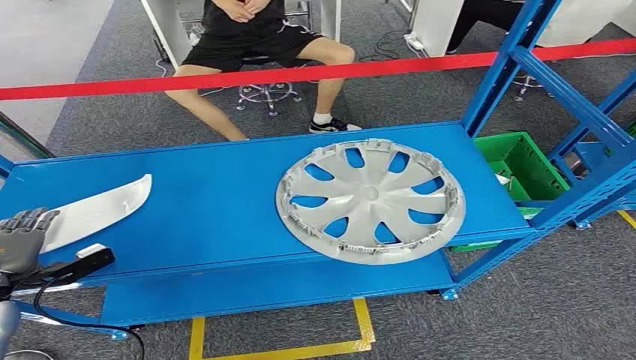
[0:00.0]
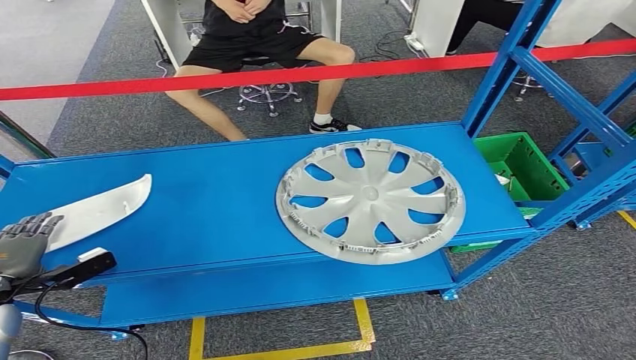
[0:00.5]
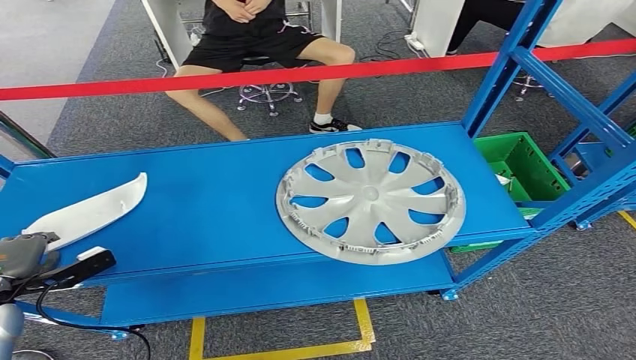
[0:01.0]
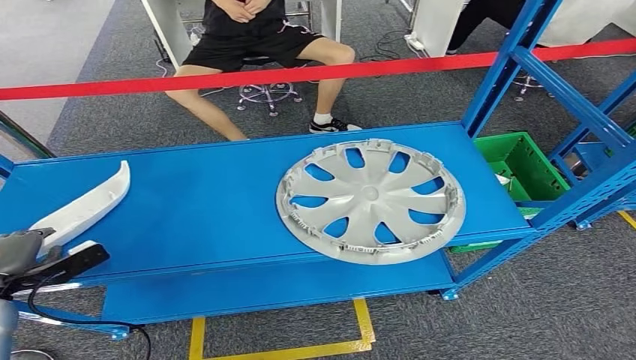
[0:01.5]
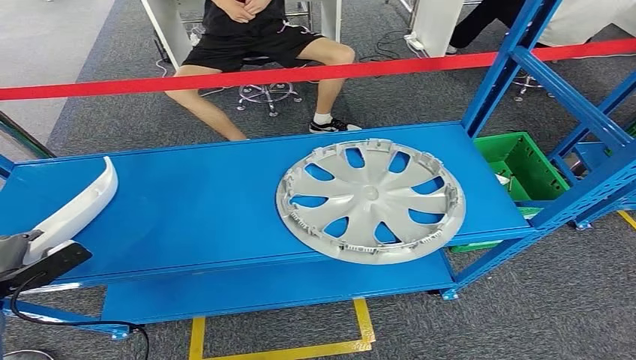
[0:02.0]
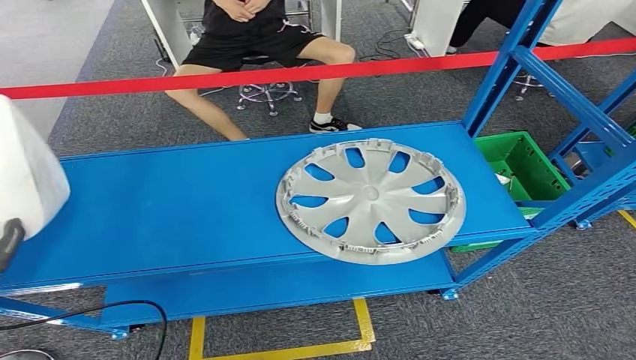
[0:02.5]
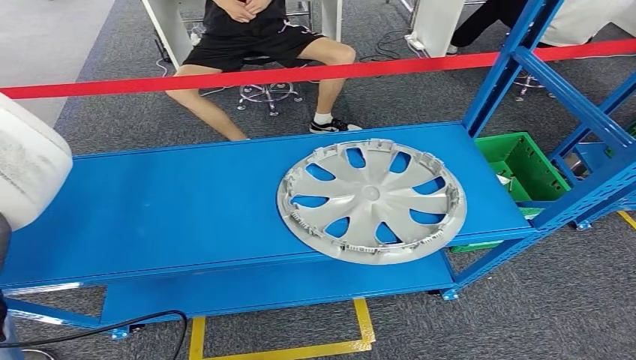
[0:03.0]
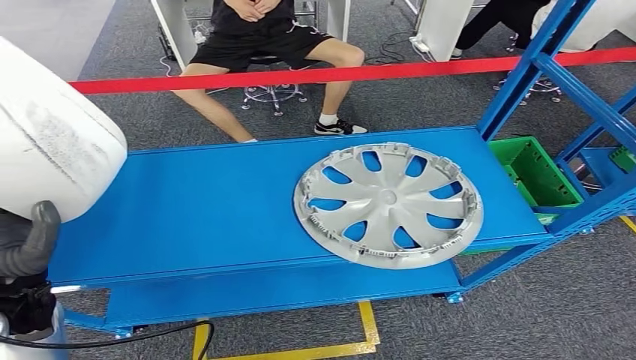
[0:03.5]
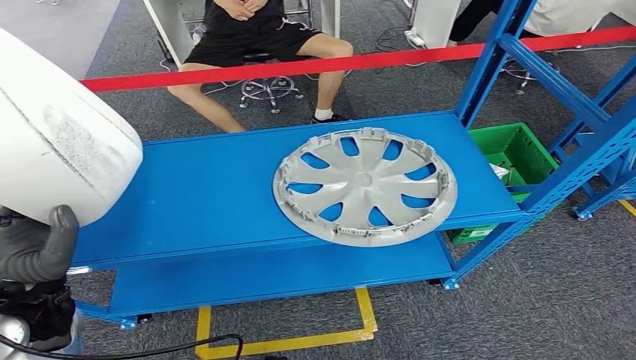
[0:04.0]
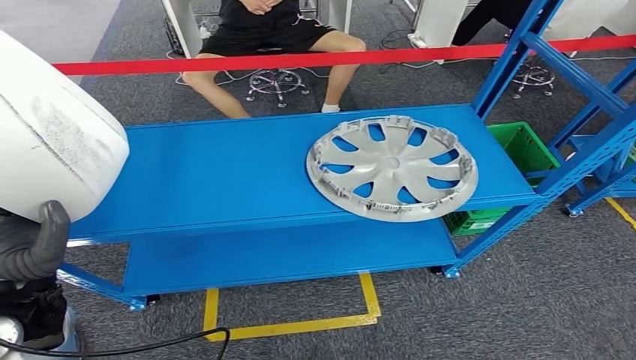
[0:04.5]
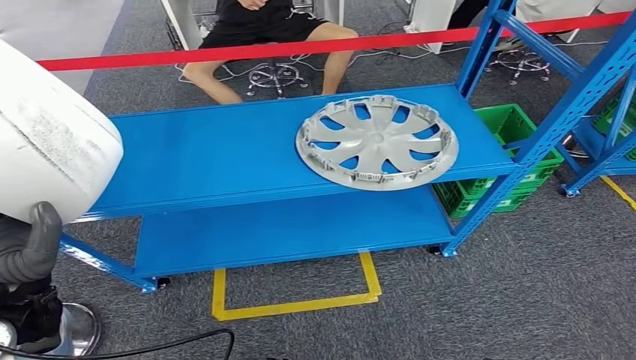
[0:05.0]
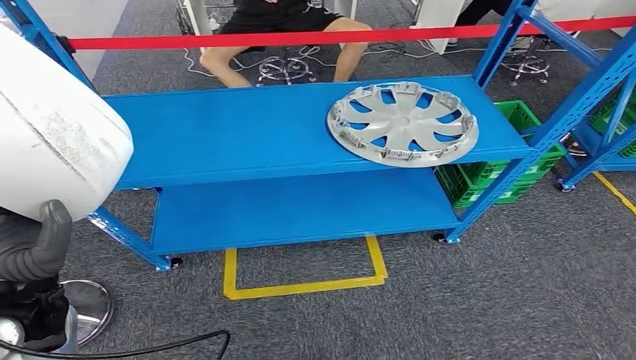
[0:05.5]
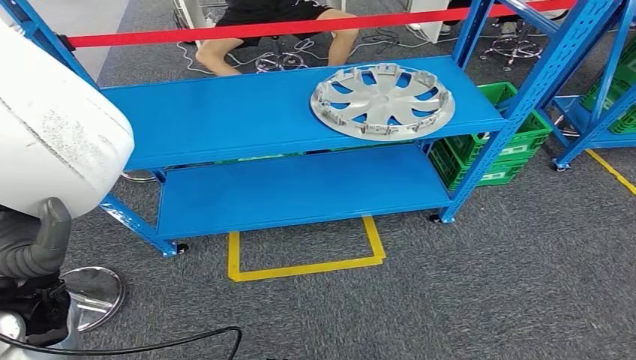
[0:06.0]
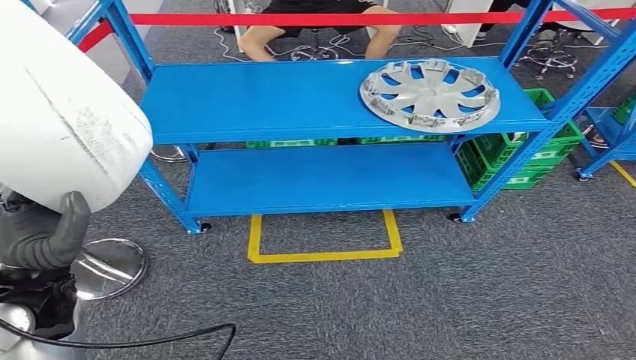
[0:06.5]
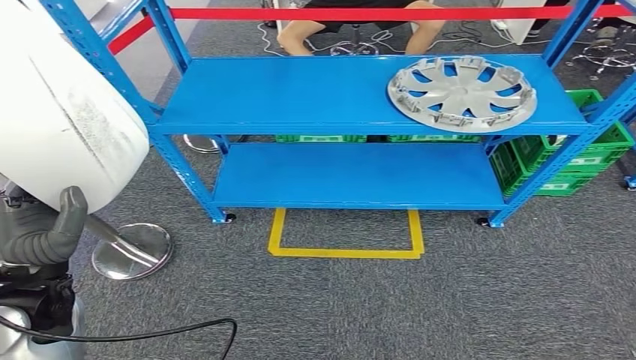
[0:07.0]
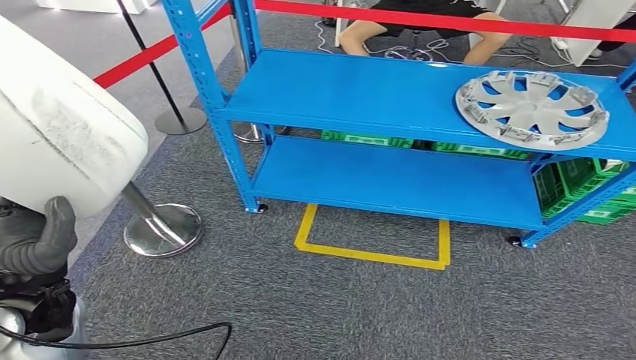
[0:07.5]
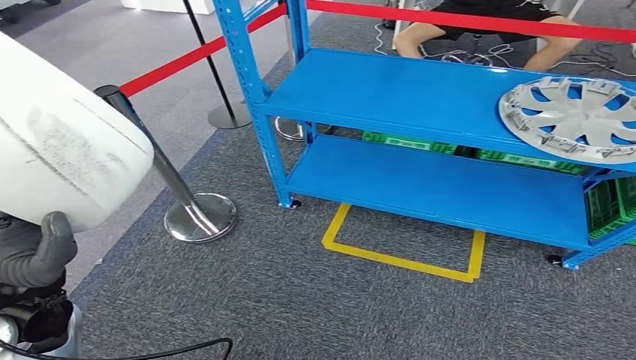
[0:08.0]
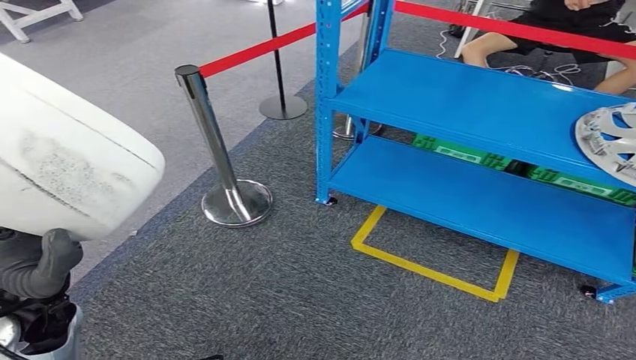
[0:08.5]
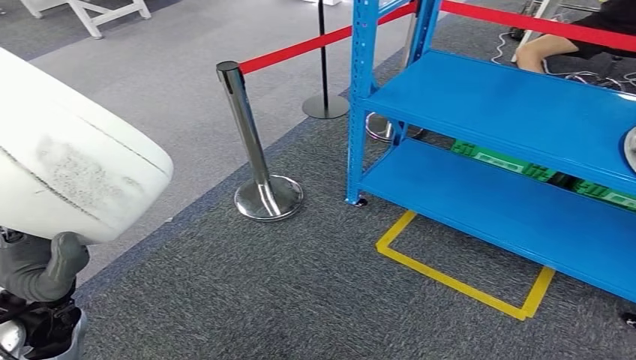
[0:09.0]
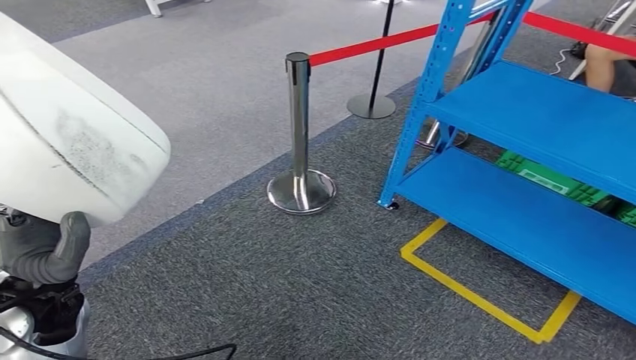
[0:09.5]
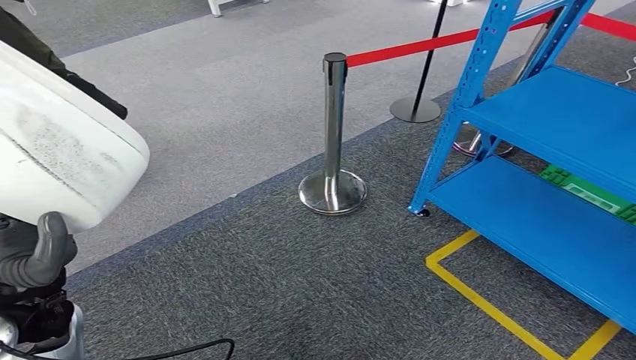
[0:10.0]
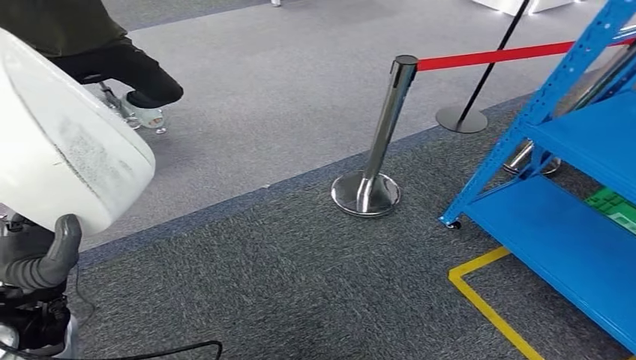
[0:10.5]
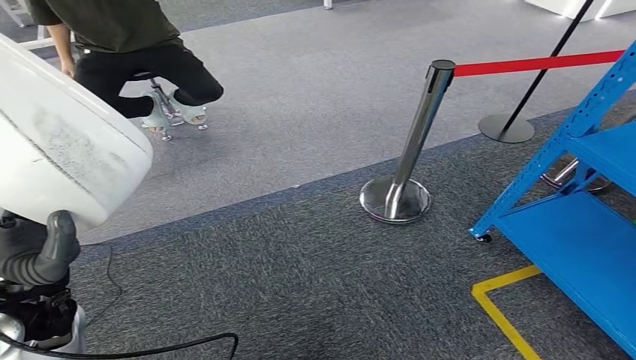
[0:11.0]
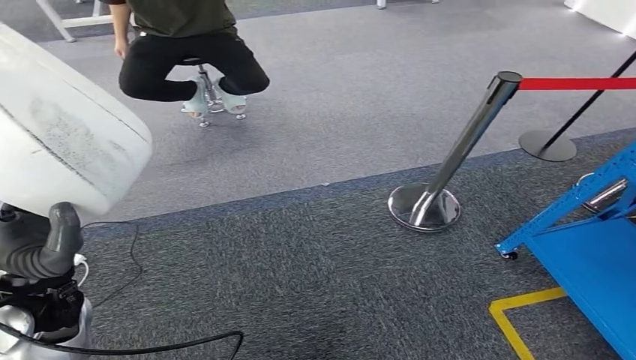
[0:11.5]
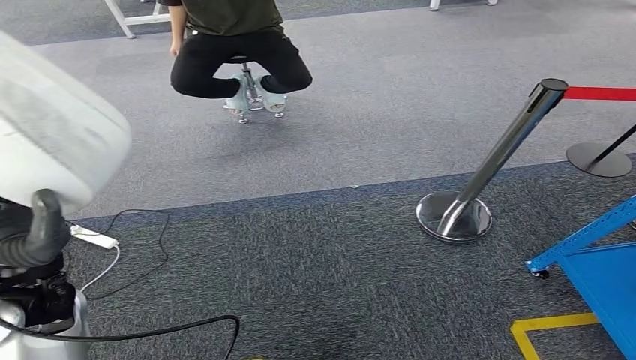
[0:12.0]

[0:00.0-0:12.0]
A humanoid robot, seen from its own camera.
Step, 0:00.0 to 0:04.5: Pick up the small component from the shelf.

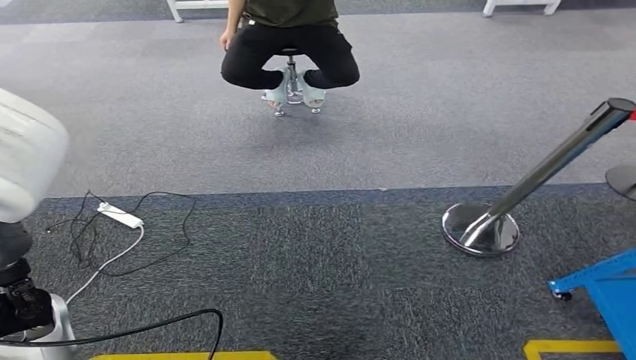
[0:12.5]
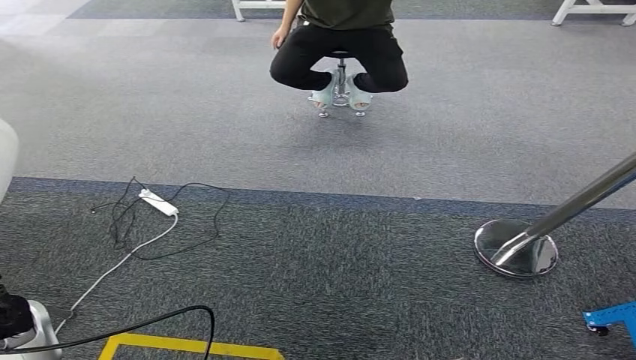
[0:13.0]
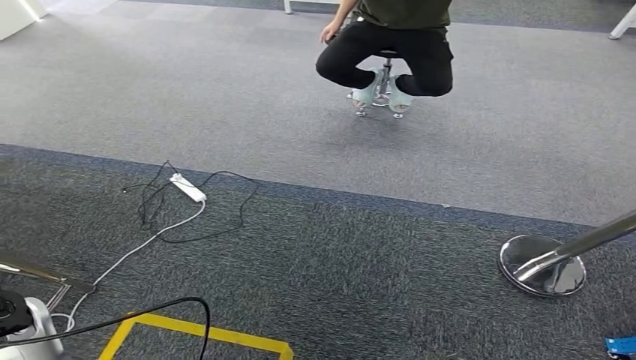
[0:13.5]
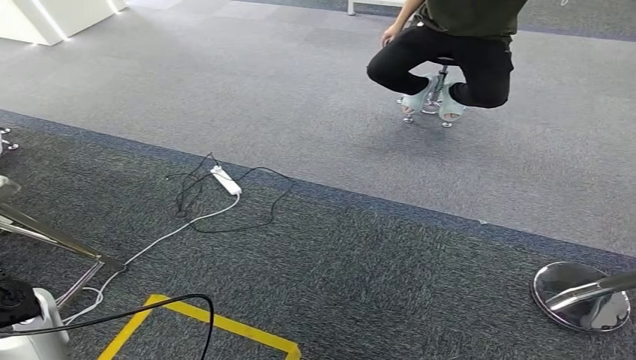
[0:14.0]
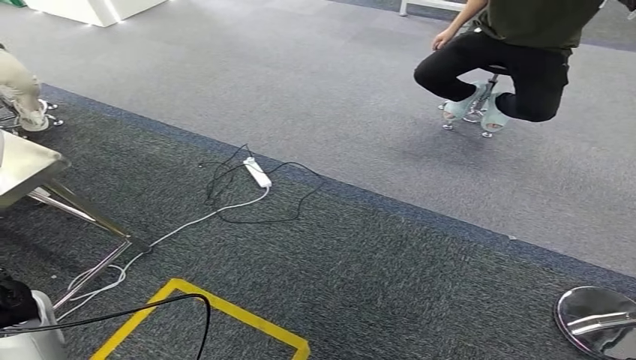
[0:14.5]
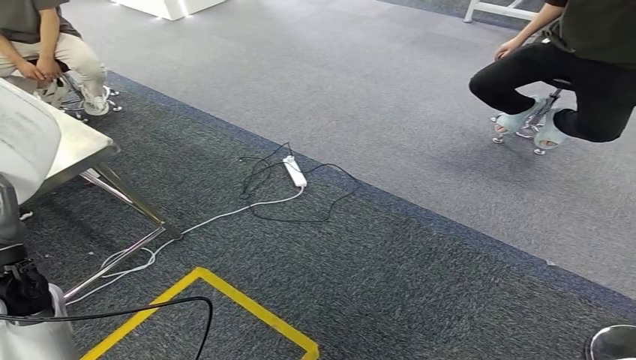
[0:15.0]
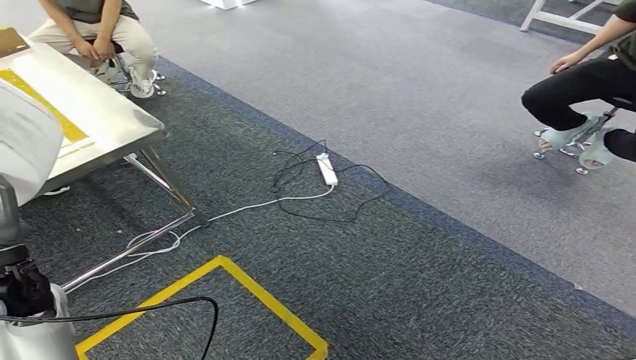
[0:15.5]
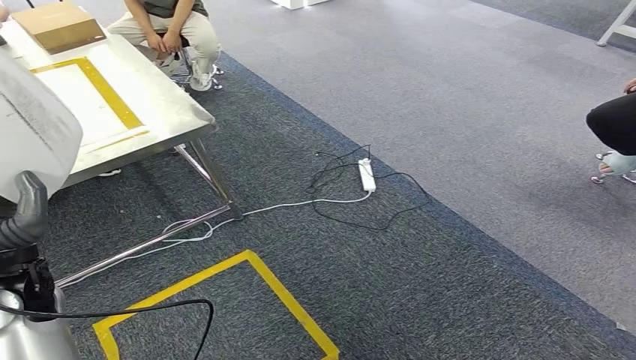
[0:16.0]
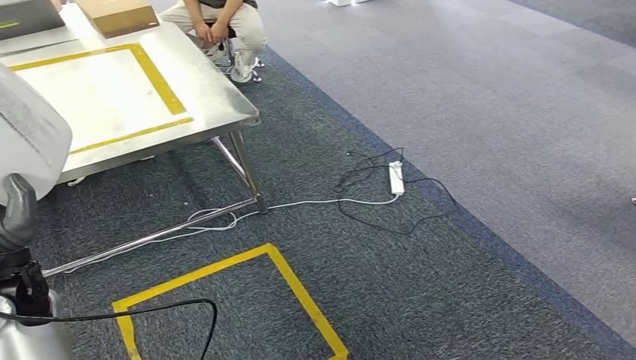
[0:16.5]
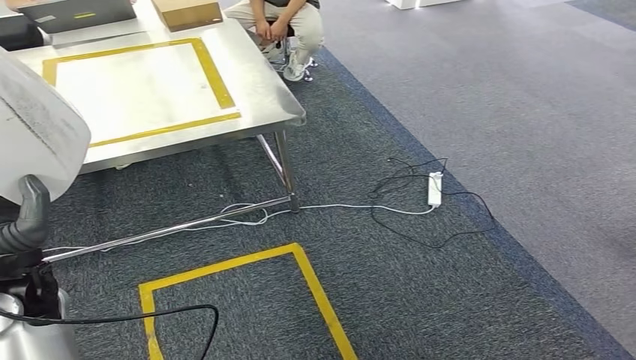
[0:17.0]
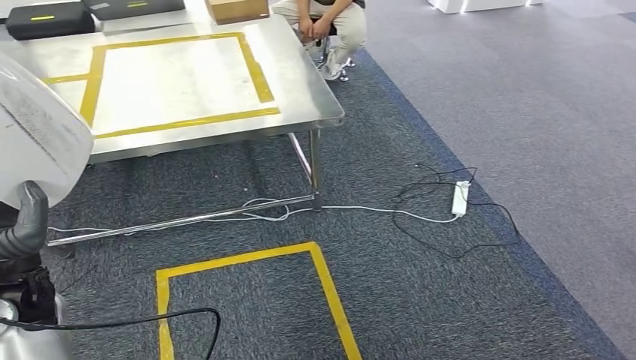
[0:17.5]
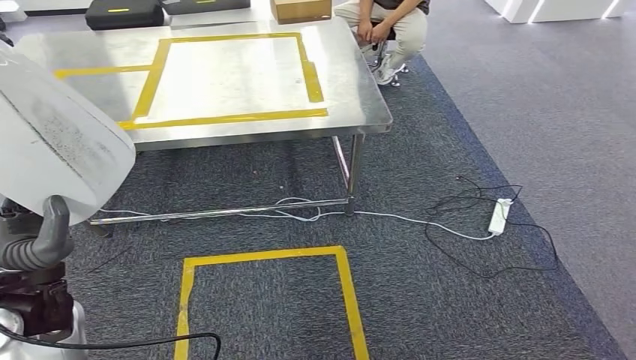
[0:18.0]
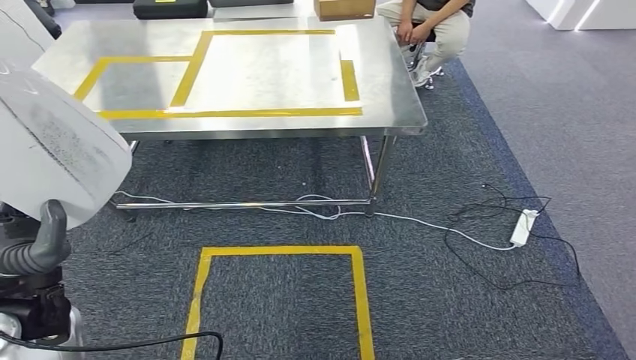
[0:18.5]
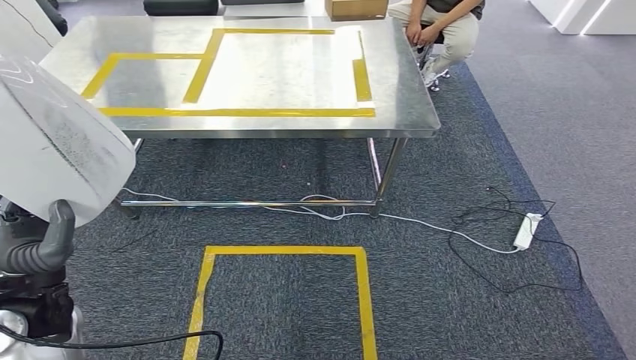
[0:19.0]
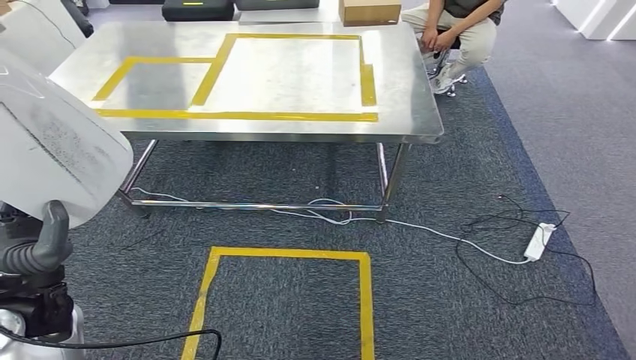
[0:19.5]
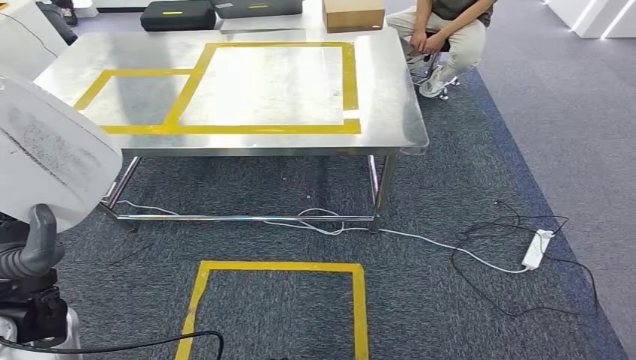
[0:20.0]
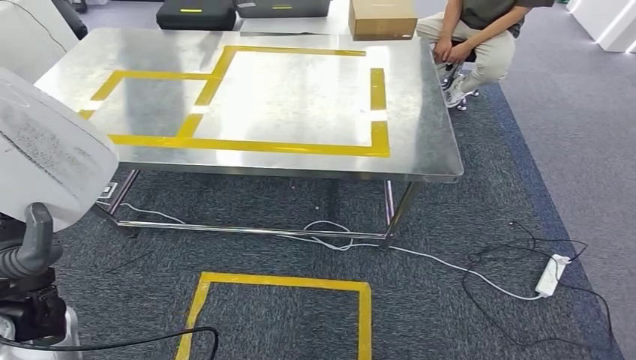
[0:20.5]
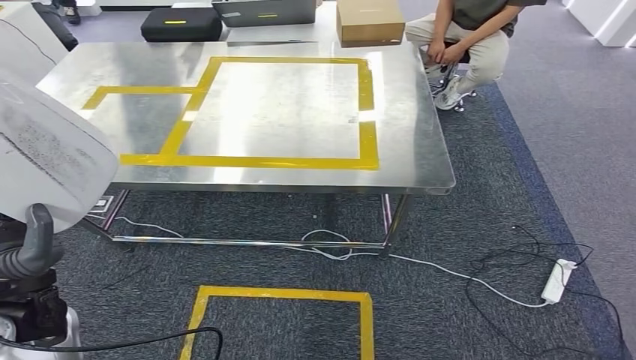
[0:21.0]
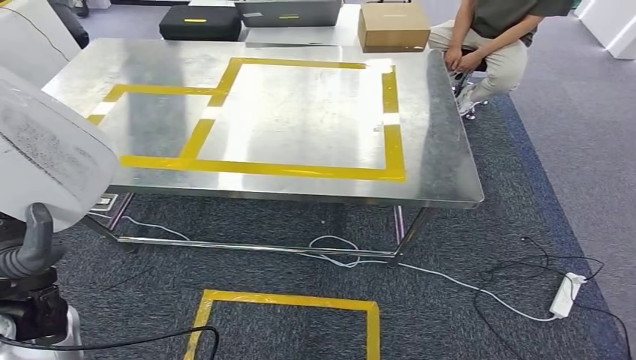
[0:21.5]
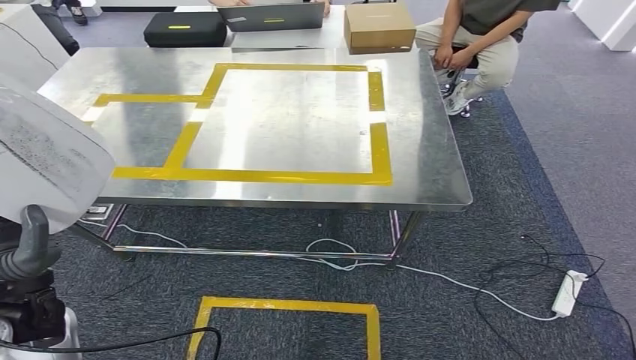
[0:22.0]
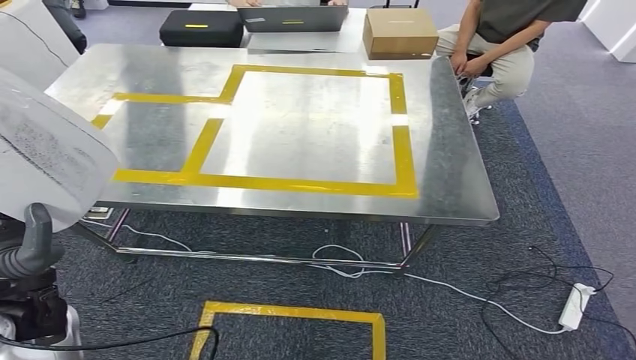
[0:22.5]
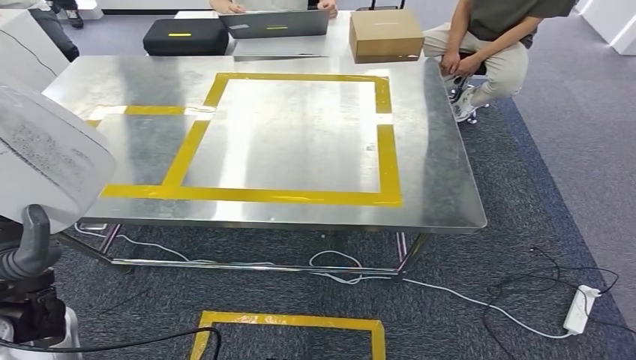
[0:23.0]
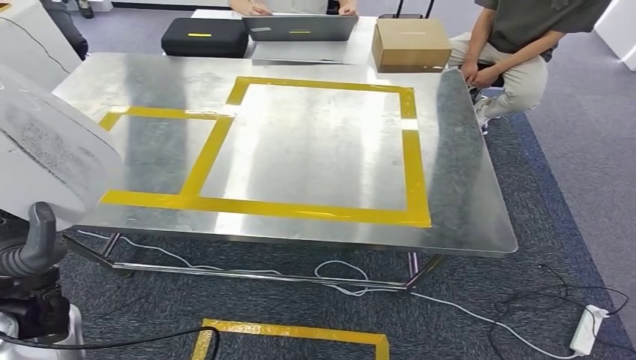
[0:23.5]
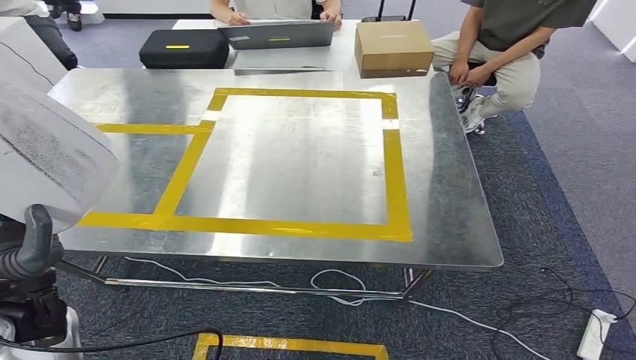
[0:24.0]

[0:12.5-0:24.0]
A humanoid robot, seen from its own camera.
Step, 0:12.5 to 0:22.0: Move the small component to the workbench.
